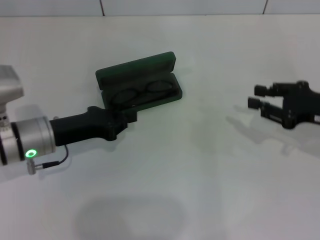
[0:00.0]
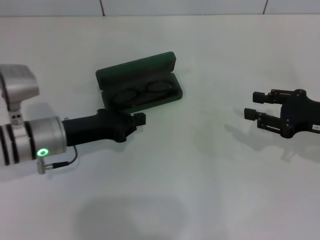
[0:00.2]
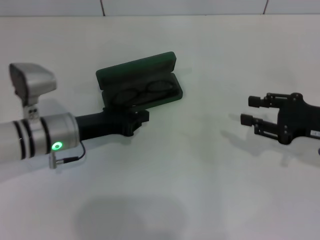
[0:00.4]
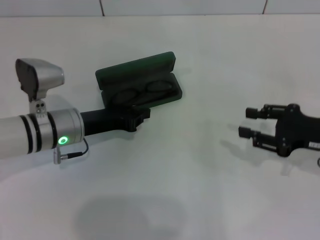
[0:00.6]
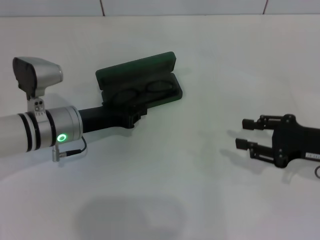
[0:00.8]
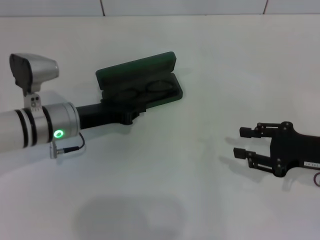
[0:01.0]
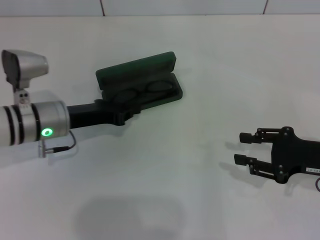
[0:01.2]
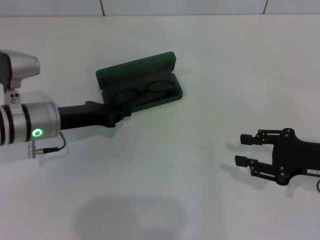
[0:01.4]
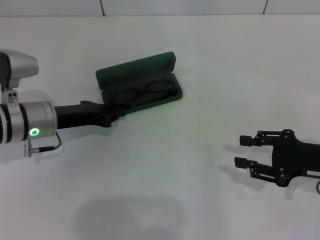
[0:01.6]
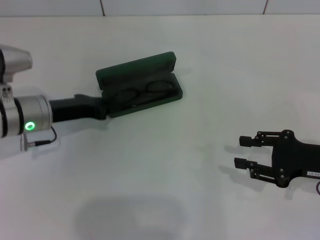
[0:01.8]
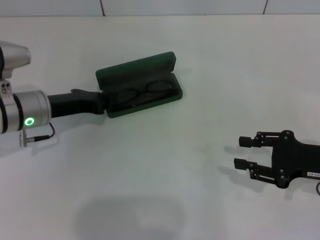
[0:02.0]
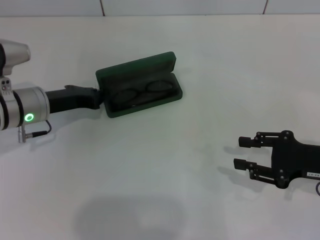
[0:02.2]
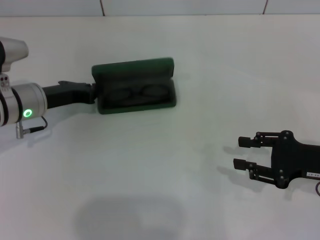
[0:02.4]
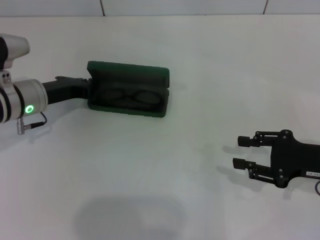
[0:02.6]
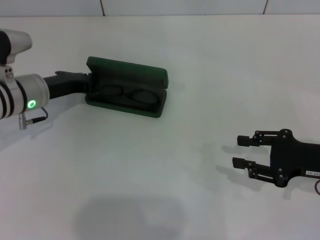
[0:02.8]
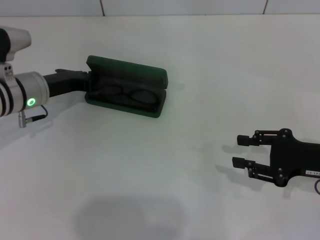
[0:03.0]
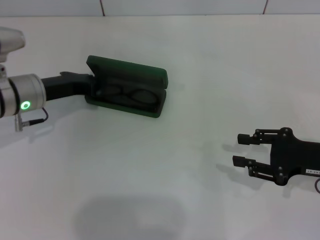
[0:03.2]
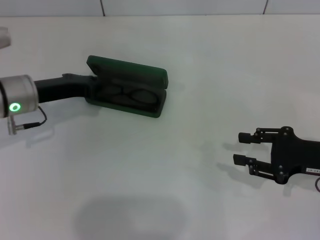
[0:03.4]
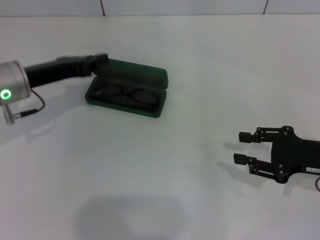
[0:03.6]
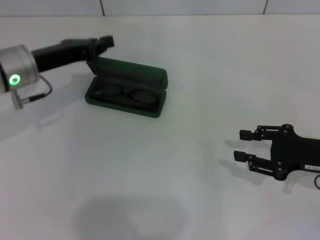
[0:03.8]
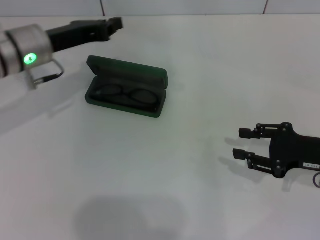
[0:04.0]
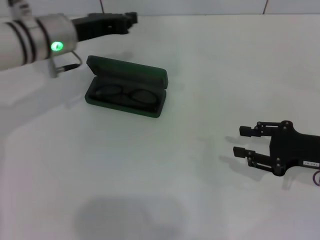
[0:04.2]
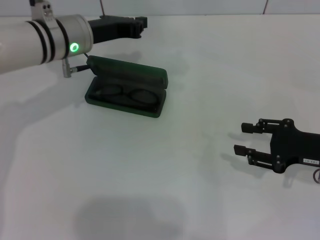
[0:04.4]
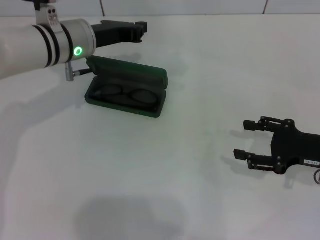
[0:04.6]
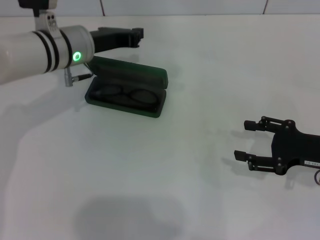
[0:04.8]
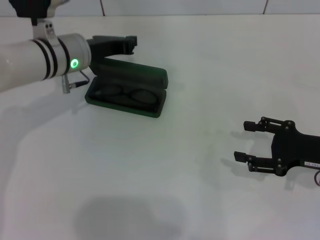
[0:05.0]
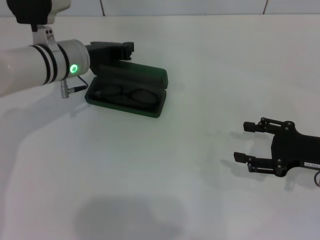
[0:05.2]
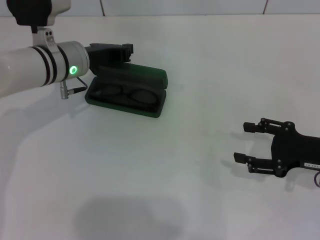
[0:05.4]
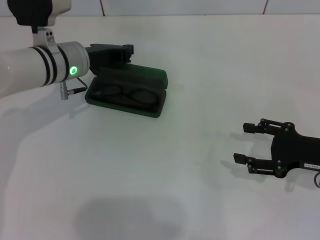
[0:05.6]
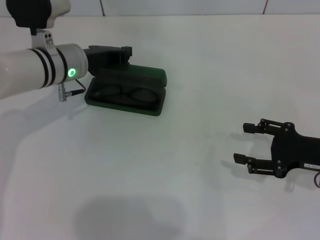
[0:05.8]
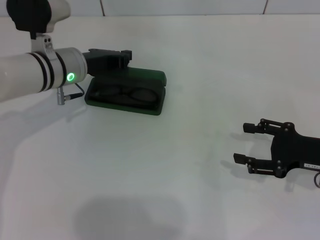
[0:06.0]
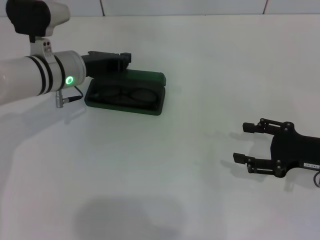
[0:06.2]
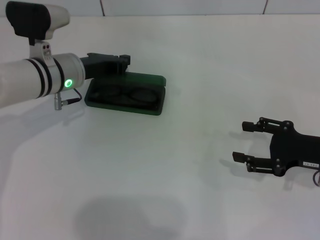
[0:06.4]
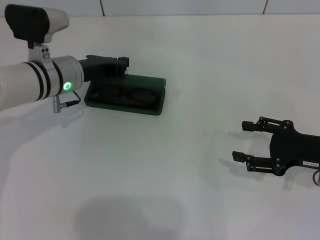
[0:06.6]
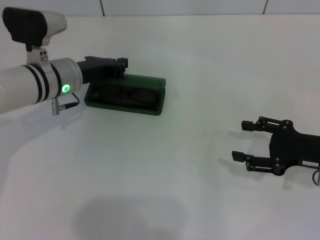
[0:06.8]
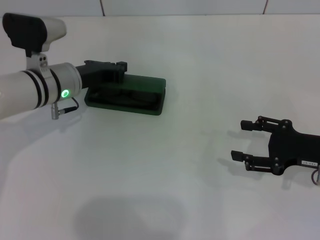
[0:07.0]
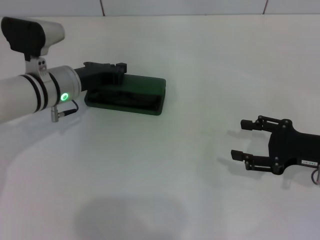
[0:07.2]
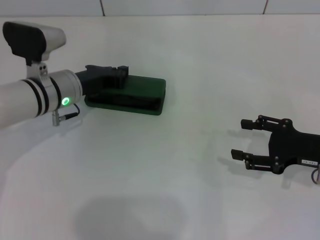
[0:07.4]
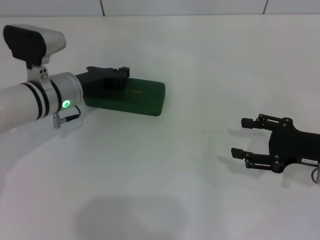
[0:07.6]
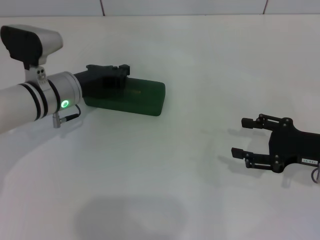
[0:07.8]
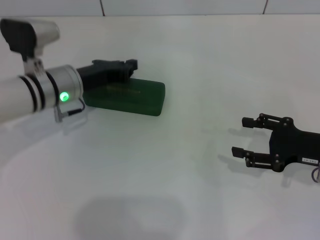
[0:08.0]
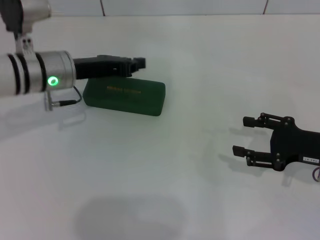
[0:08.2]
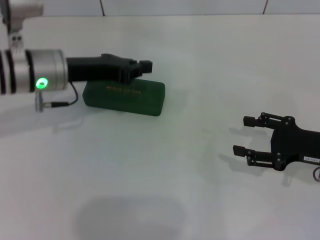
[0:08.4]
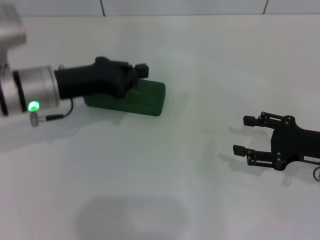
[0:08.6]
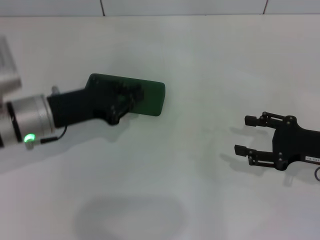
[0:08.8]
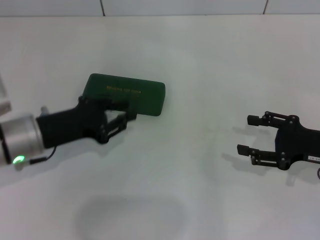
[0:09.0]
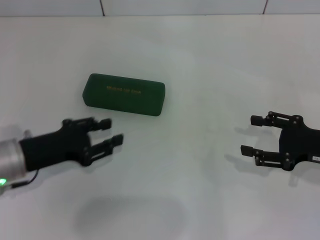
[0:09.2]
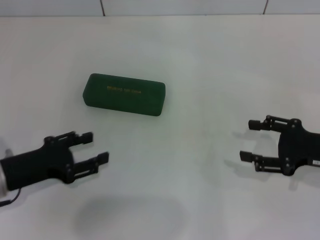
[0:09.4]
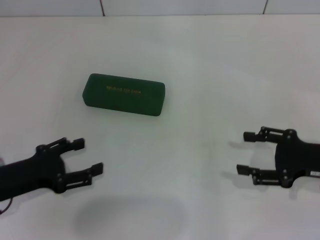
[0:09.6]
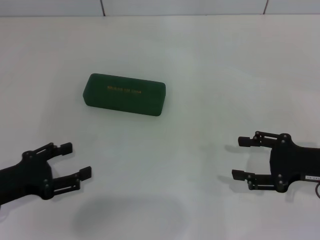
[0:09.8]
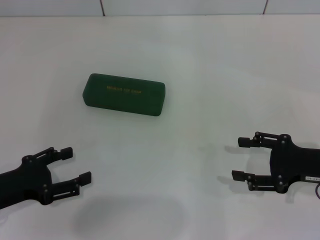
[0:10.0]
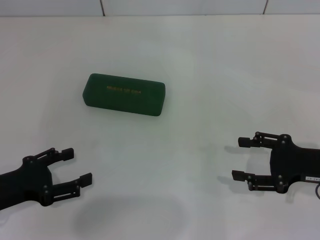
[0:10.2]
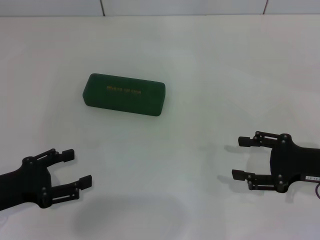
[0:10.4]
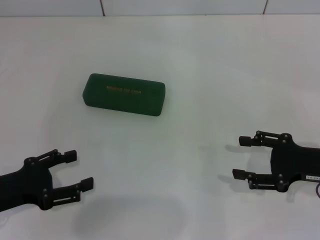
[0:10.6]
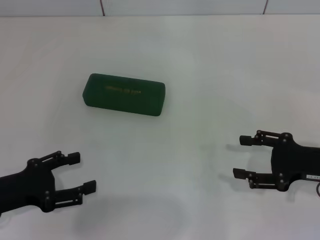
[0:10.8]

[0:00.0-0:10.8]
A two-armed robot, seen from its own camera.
Step, 0:00.0 to 0:07.6: Close the glasses case with your left hand.
0:00.0 to 0:01.6: The right gripper shifts roughly 5 cm backward.
0:01.6 to 0:03.0: The grippers stay close to where they were, moving slightly.
0:03.0 to 0:04.6: The left gripper heads to the right and upward, covering about 10 cm.
0:04.6 to 0:06.2: The right gripper opens.
0:06.2 to 0:07.8: The grippers move only a little.
0:07.8 to 0:09.2: The left gripper moves backward and to the left, about 15 cm.
0:09.2 to 0:10.8: The left gripper is displaced backward by about 5 cm, and opens its fingers.
